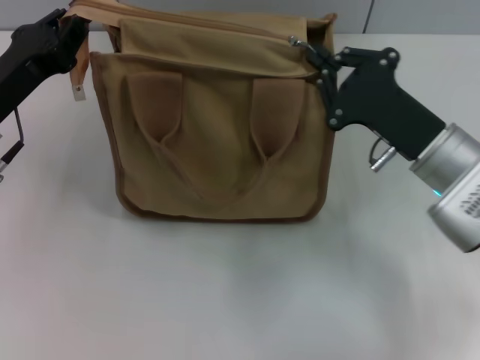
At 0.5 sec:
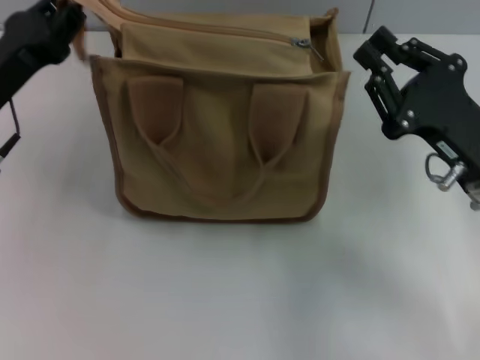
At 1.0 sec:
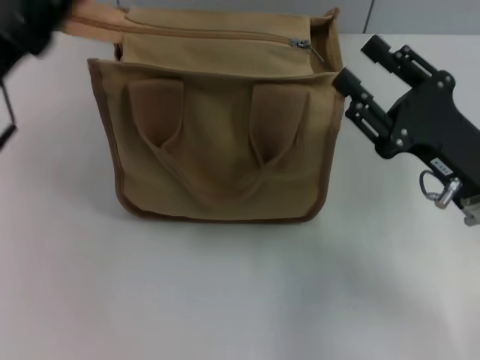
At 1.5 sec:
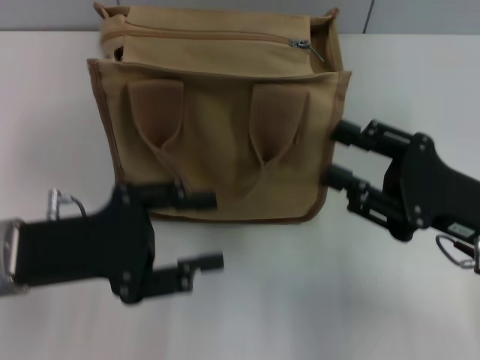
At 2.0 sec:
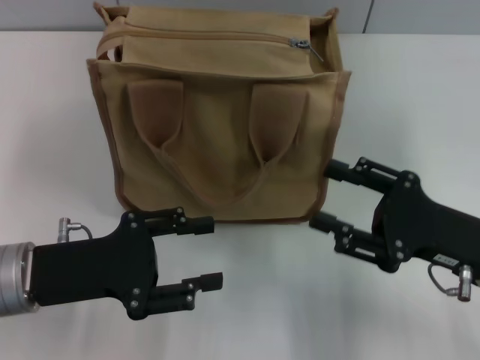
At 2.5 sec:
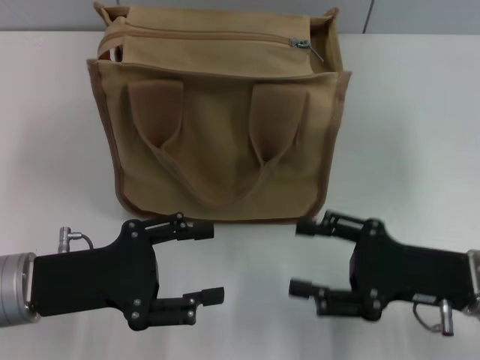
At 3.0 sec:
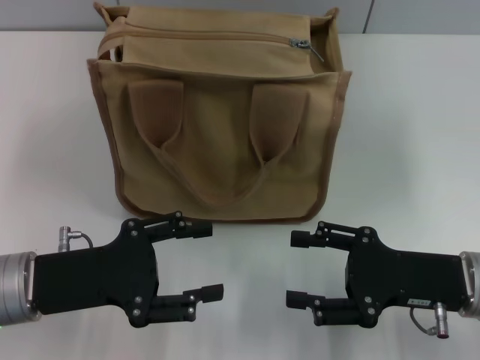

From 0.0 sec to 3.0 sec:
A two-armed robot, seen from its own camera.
Step, from 0.5 sec to 1.0 sec: Grab the zipper with your left hand.
From 0.0 sec to 1.5 sec: Both grippers travel together backward, some 5 cm. The right gripper opens up; the left gripper opens.

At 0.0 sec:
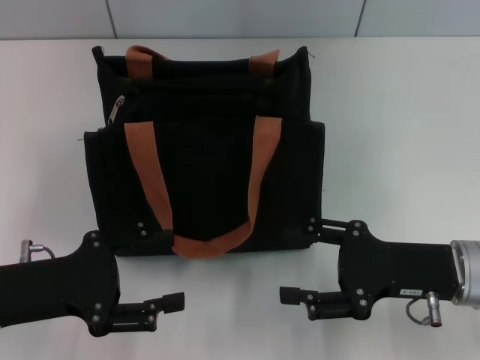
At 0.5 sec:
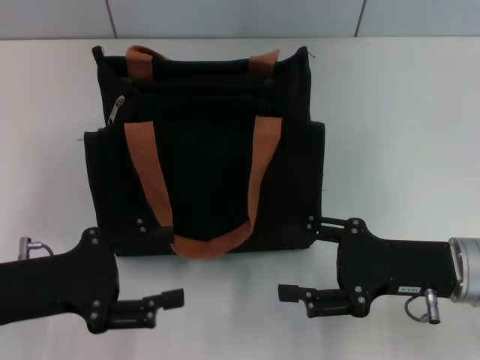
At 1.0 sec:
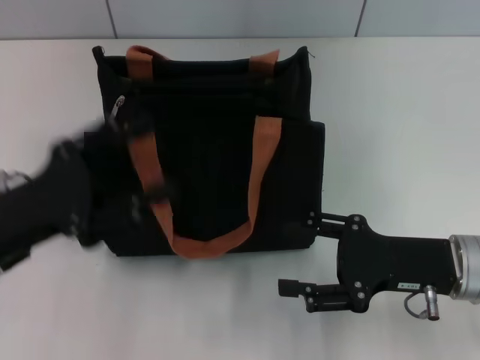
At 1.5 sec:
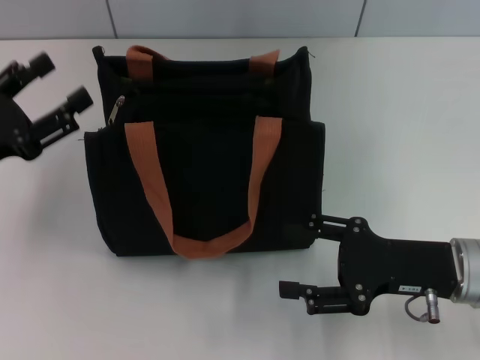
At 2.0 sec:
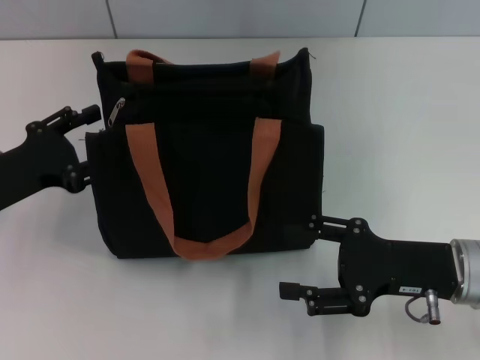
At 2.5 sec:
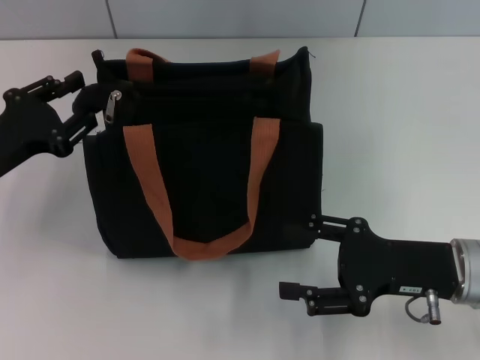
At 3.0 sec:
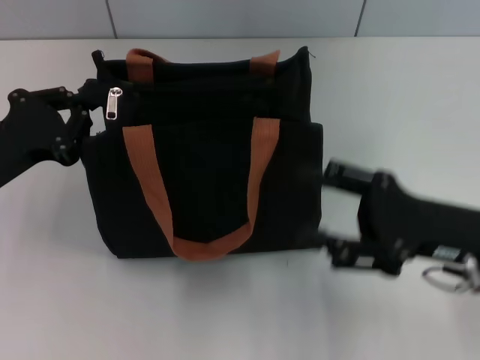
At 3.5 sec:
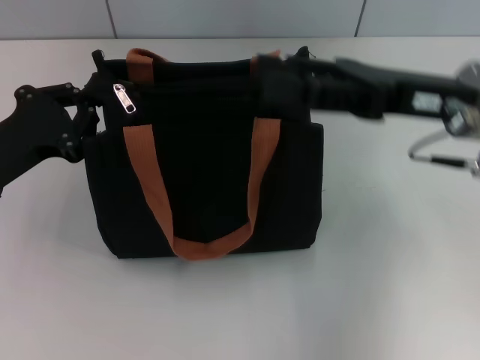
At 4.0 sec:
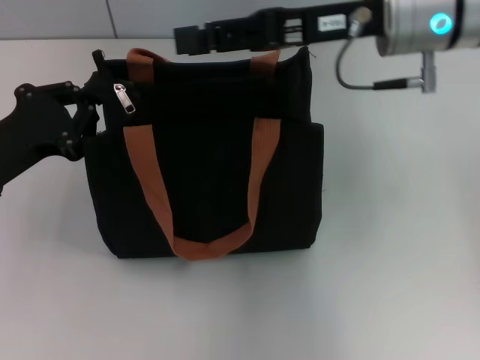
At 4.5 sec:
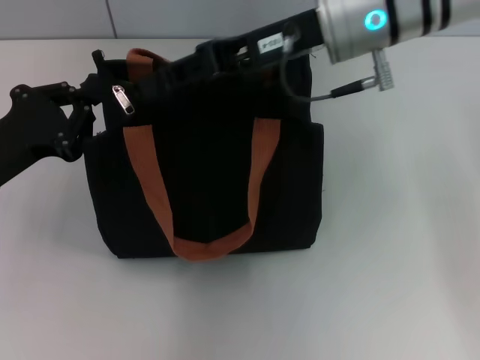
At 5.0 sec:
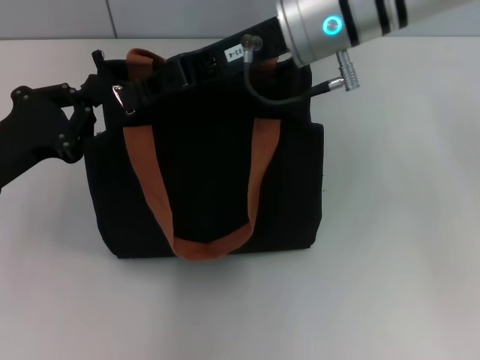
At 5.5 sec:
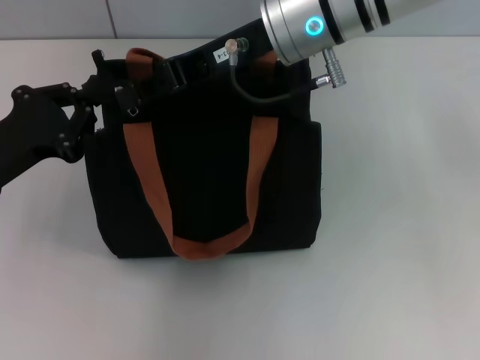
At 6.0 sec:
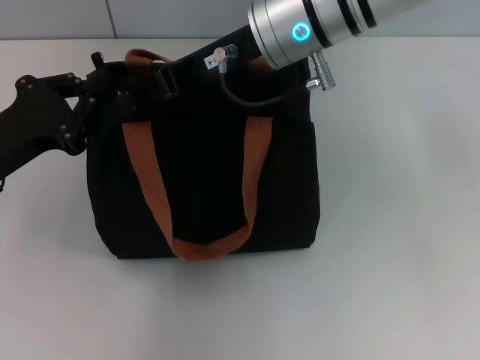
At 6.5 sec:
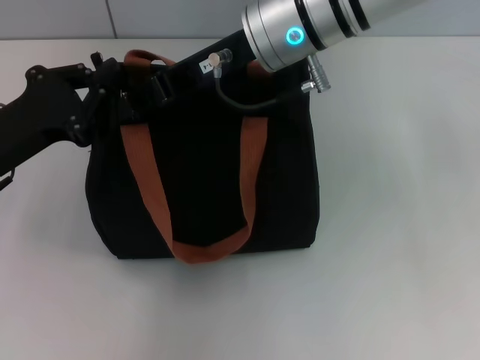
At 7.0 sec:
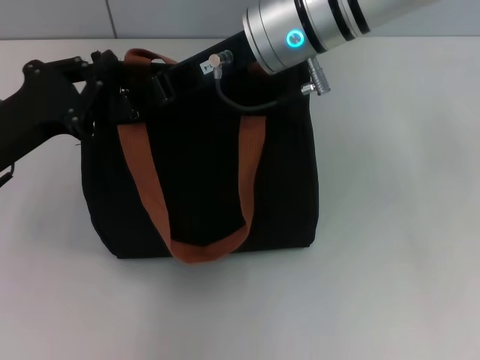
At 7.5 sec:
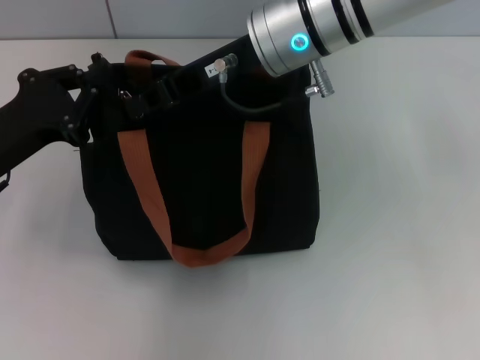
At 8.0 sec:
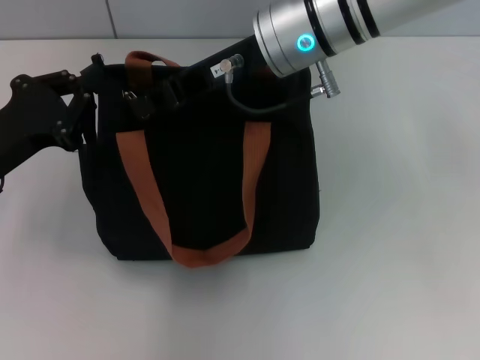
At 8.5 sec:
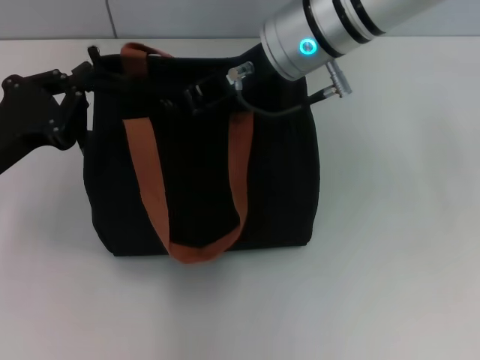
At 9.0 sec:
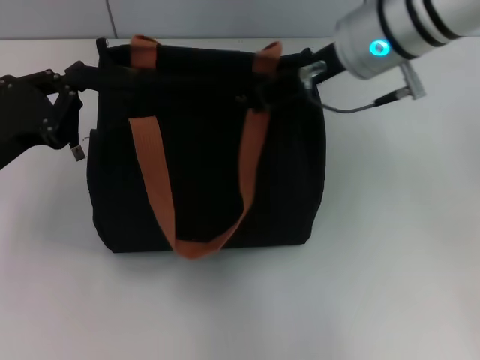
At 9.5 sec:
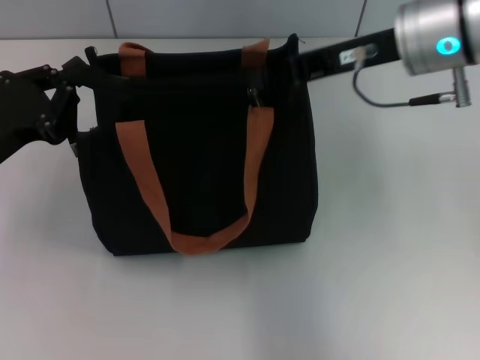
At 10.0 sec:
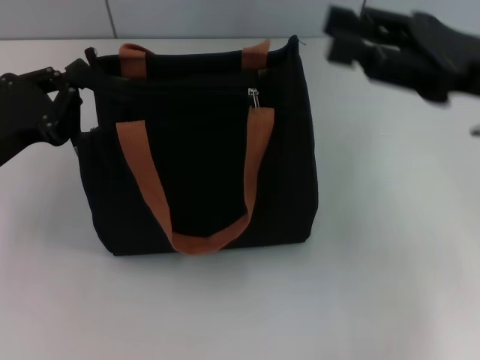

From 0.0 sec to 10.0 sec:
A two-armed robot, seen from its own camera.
Step, from 0.0 sec to 9.0 sec: Pull up the zipper with your right hand.
From 0.0 sec to 2.0 sec: The left gripper is displaced forward by some 5 cm.
From 2.0 sec to 4.0 sec: The left gripper closes up; the right gripper shifts approximately 25 cm upward, forward and to the left.
From 4.0 sec to 6.0 sec: The right gripper is displaced to the left by about 10 cm, and closes its fingers.
From 6.0 sec to 8.0 sec: The right gripper closes its fingers.
From 8.0 sec to 10.0 sec: The right gripper is displaced to the right and backward by roughly 20 cm, and opens its fingers.

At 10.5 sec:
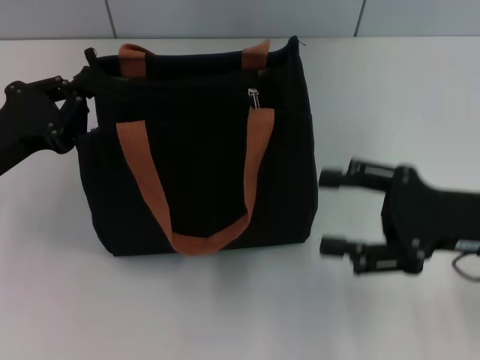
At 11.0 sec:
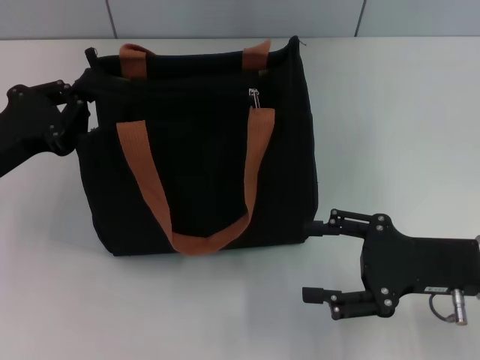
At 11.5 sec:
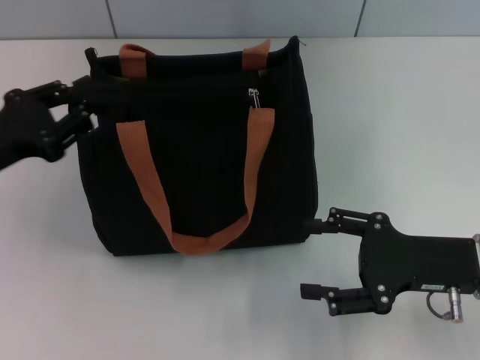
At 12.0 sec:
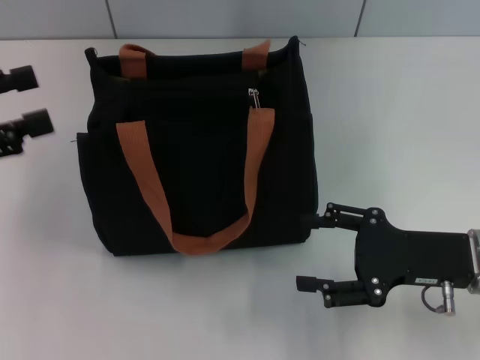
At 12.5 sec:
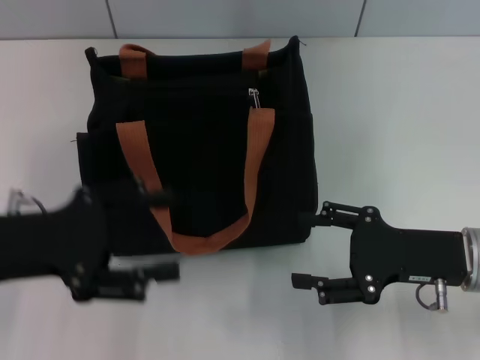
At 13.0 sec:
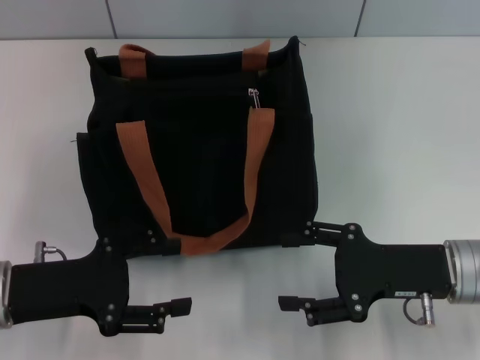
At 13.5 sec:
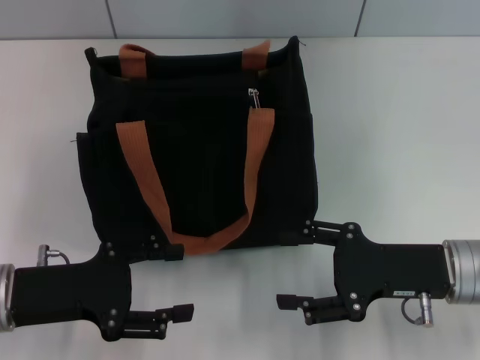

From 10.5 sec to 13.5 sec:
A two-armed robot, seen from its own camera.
Step, from 10.5 sec to 11.5 sec: Grab the zipper with your left hand.
From 10.5 sec to 12.0 sec: The left gripper shifts some 10 cm upward and to the left, and opens up.
From 12.0 sec to 13.5 sec: The left gripper heads downward and to the right, covering roughly 15 cm, and opens.

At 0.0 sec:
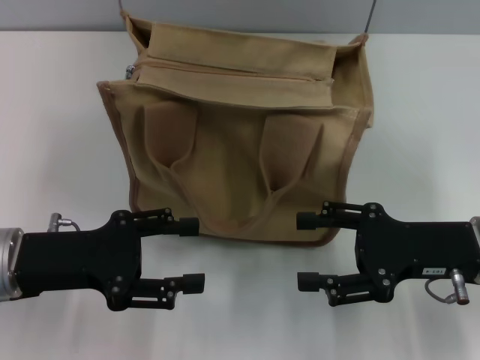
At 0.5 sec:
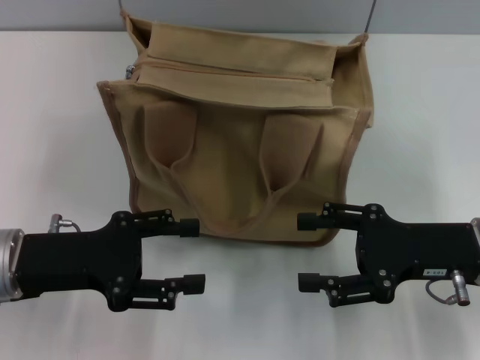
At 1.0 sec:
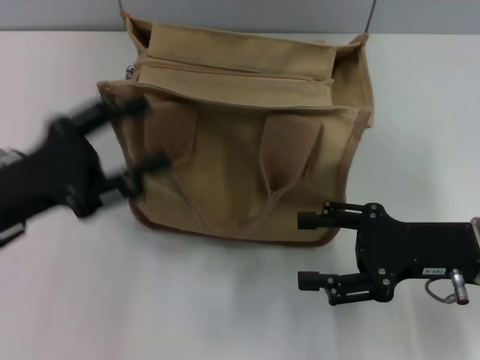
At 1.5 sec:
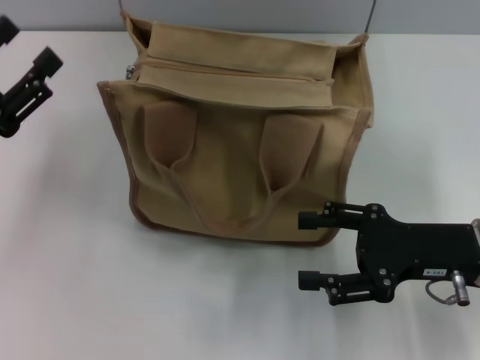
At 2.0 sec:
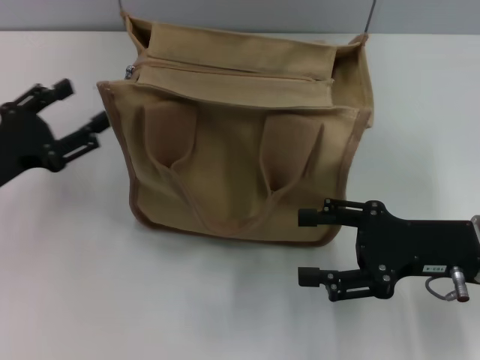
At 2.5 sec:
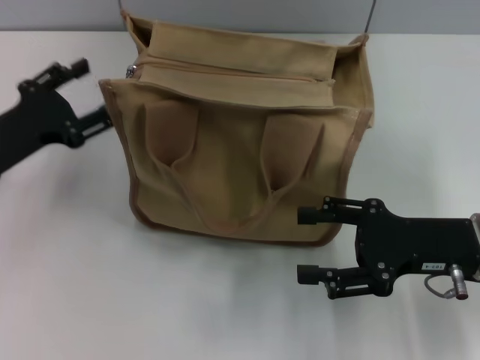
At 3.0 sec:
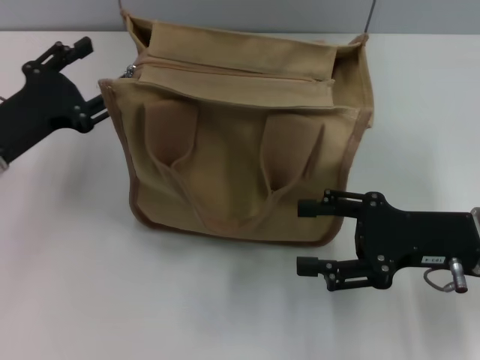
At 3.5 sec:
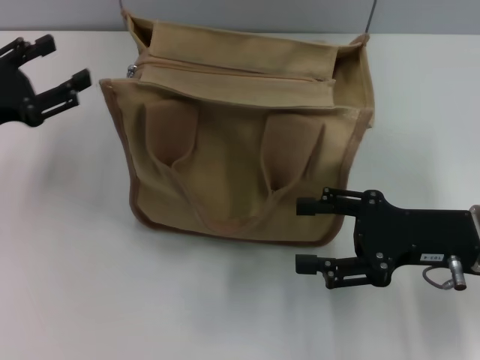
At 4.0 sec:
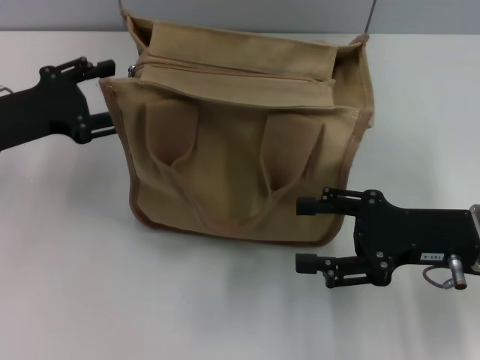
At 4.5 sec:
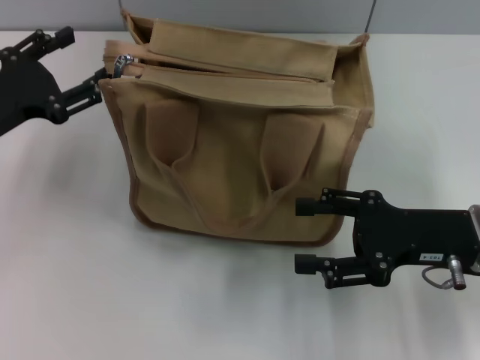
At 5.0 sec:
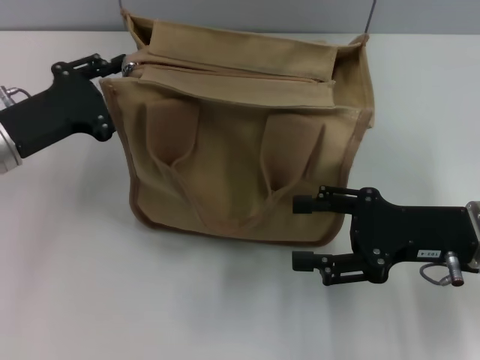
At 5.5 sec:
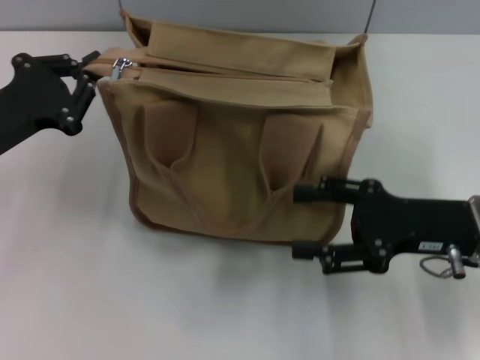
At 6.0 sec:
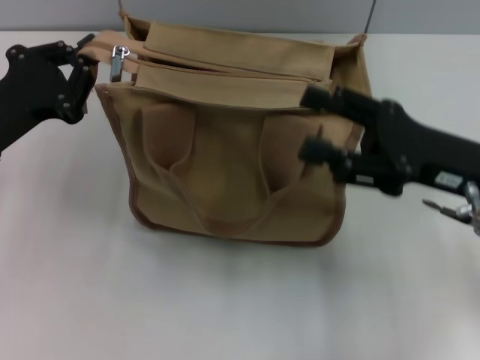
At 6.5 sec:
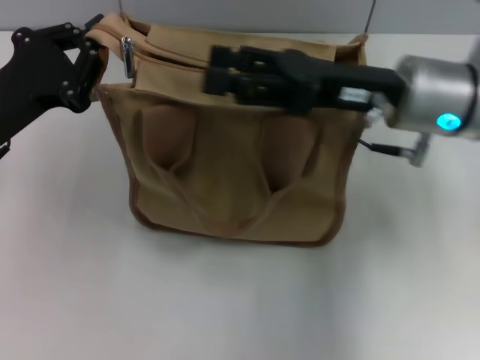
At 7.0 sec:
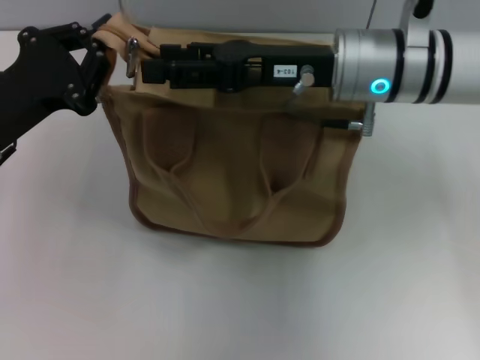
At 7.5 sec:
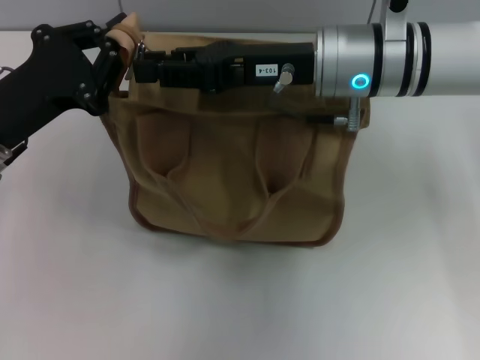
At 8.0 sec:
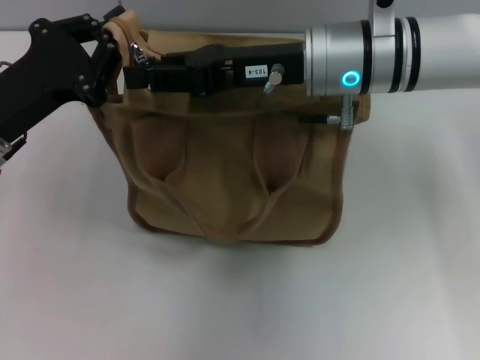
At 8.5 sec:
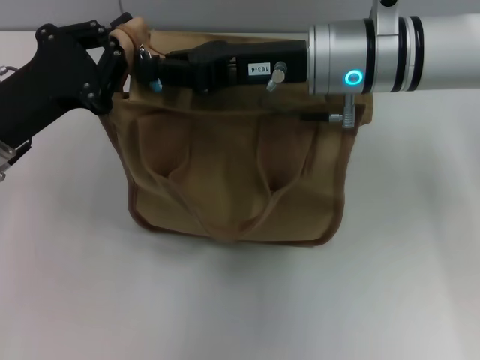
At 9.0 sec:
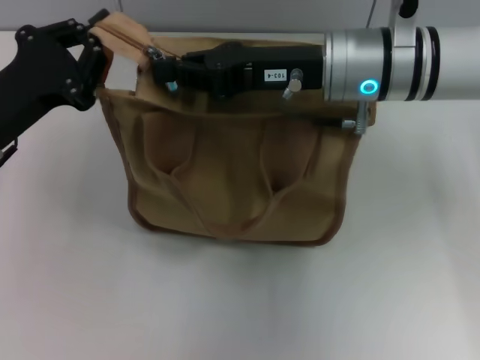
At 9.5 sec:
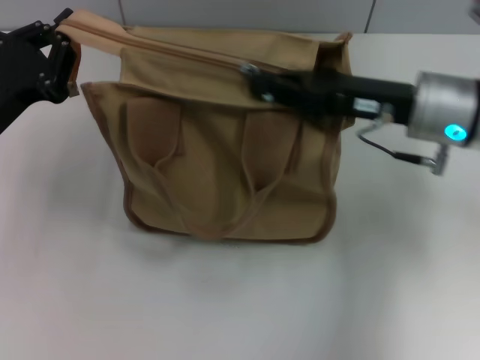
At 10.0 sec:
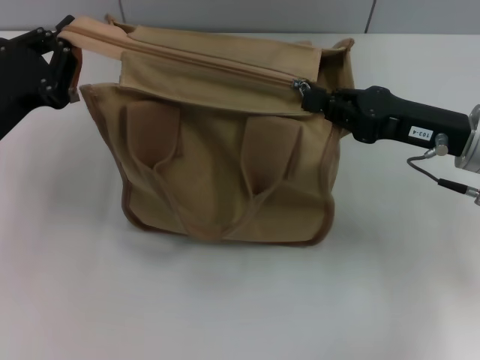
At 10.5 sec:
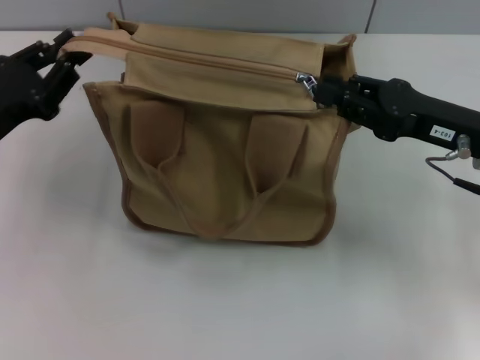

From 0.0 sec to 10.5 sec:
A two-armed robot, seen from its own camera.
Step, from 0.0 sec to 10.5 sec: Pull up the zipper with your right hand.
From 0.0 sec to 2.0 sec: The left gripper travels to the left by approximately 5 cm.
From 2.0 sec to 4.0 sec: The left gripper moves forward, some 5 cm.
From 4.0 sec to 6.5 sec: The left gripper closes its fingers. The right gripper moves to the left, forward and upward, some 15 cm.
From 6.5 sec to 8.5 sec: The right gripper shifts some 5 cm to the left, and closes up.
From 8.5 sec to 10.5 sec: The right gripper moves to the right and backward, some 15 cm.
